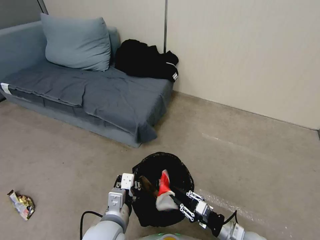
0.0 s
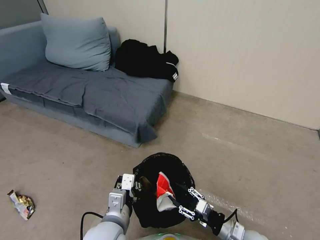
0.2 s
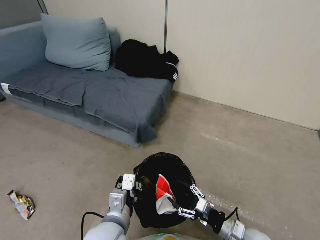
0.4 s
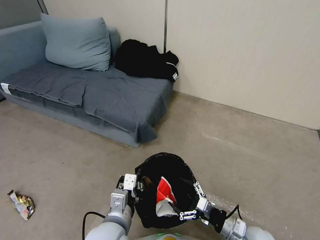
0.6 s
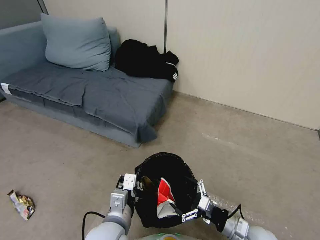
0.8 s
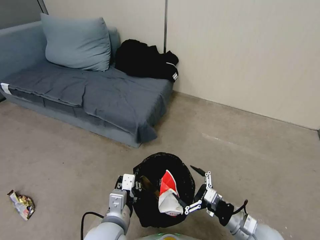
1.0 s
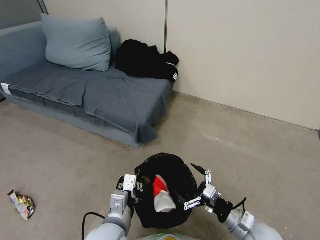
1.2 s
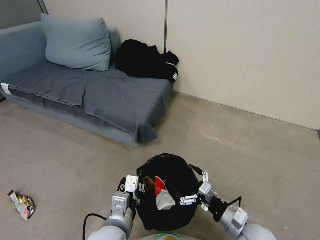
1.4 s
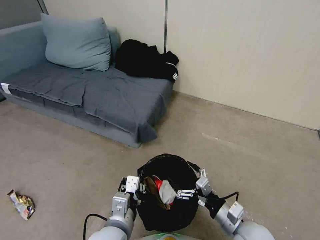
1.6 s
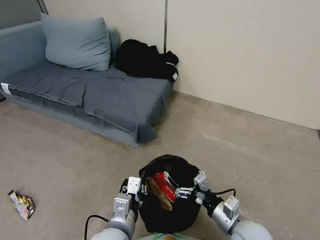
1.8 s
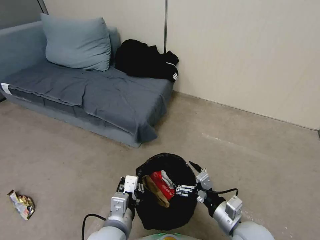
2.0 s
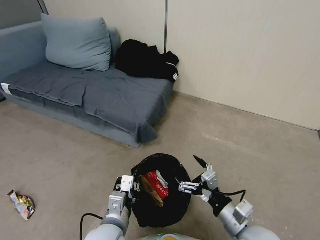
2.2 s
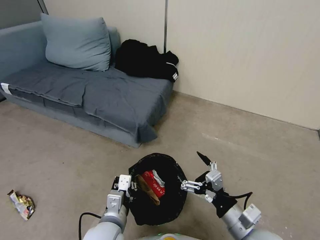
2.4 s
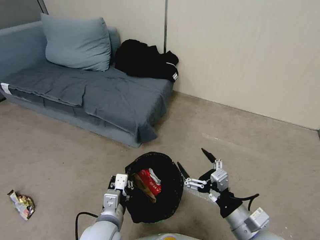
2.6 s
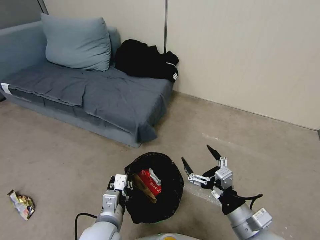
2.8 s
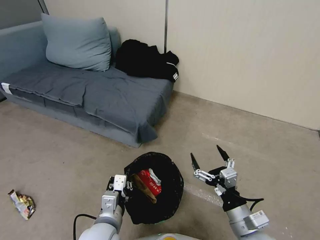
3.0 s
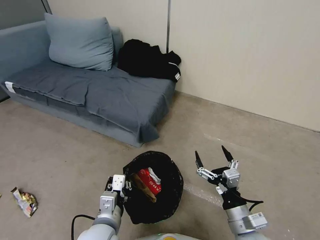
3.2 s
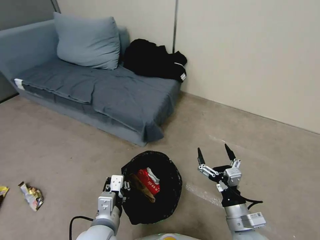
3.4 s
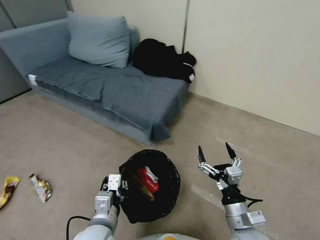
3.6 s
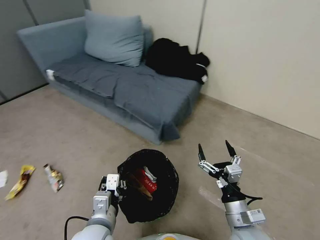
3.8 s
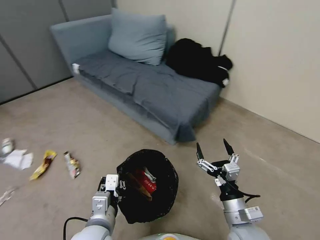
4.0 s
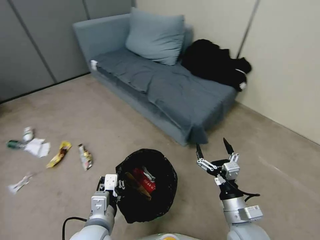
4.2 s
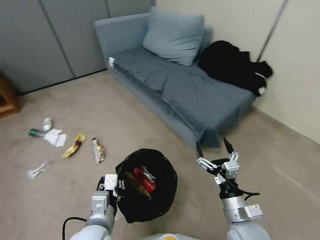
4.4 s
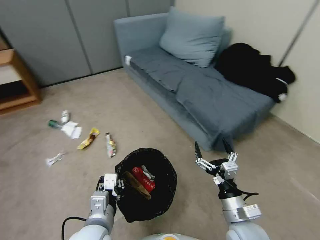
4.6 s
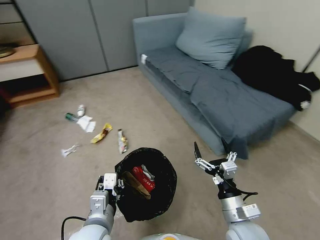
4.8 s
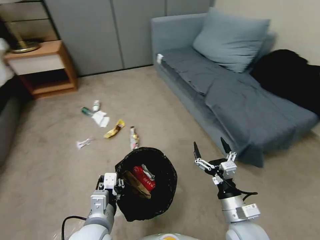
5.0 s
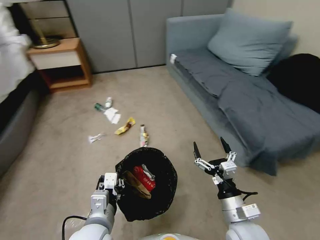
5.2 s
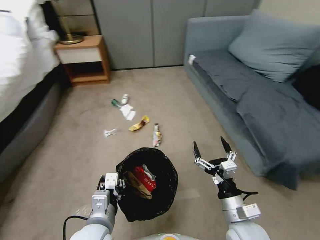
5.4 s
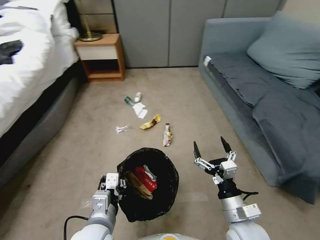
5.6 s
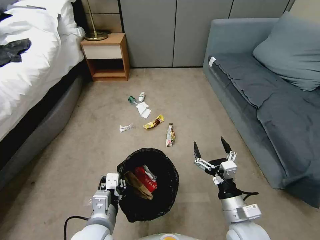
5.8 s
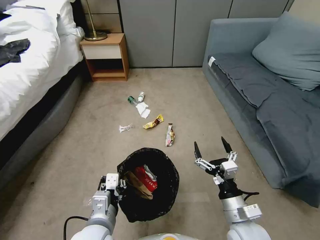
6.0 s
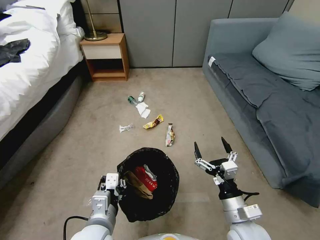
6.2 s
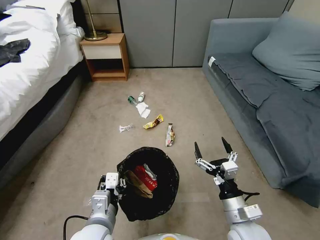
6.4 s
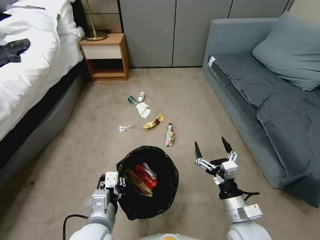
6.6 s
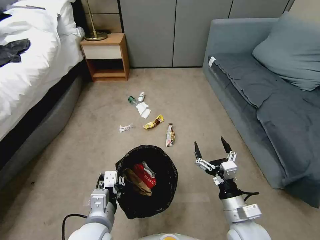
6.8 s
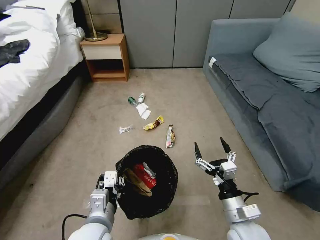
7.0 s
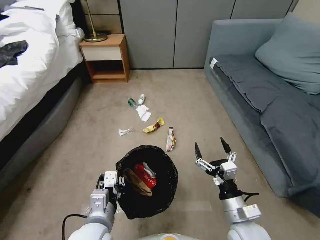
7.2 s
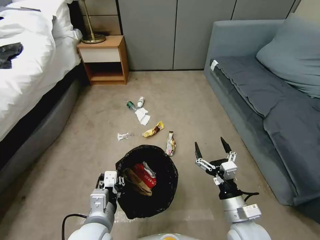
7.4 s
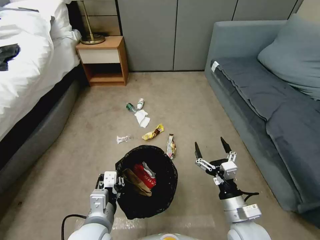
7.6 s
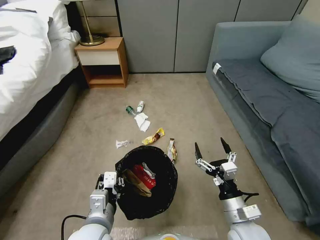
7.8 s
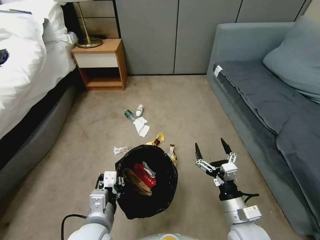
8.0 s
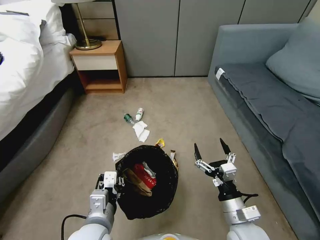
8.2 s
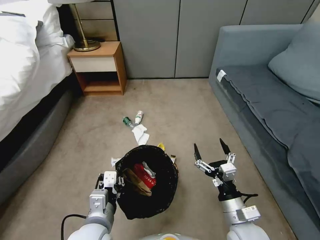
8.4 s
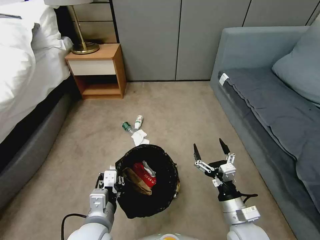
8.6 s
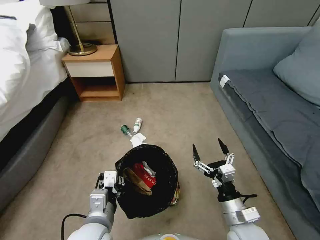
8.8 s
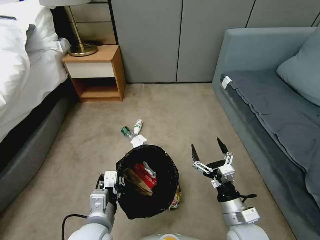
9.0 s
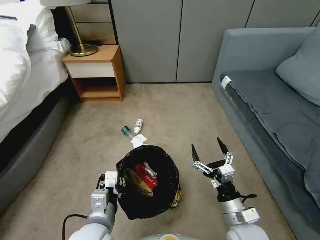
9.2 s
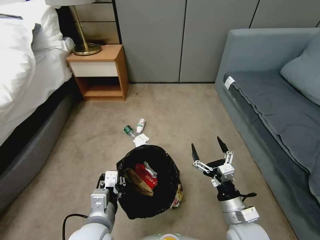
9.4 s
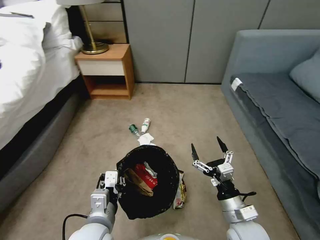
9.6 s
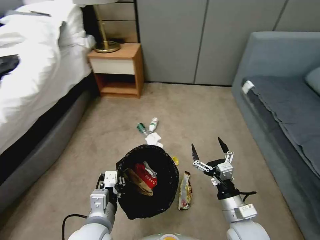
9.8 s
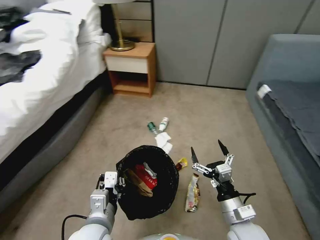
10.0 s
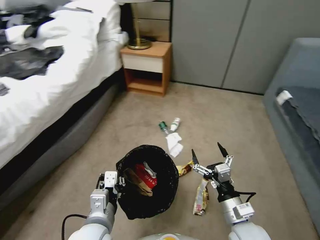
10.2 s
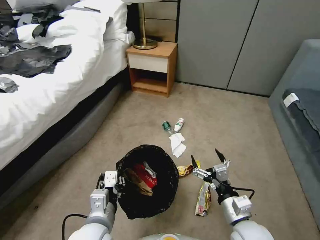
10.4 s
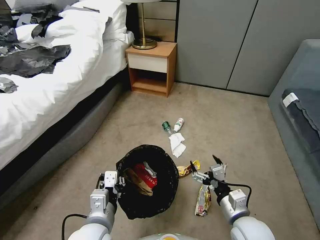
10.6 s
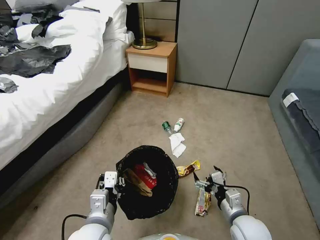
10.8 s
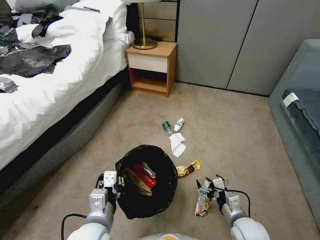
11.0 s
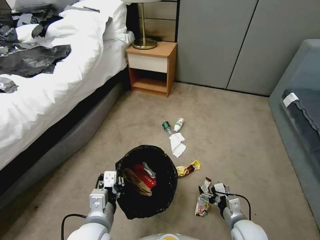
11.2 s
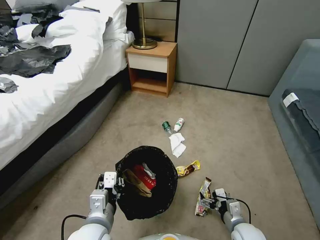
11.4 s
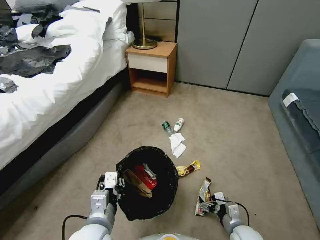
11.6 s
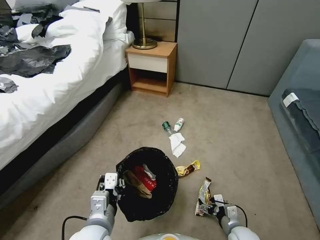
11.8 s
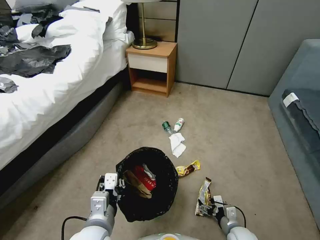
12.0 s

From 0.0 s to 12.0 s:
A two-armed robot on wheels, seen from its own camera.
Task of the whole recording: Pick up the trash bin, then pick up the garbage from the floor and place it into the trash bin.
From 0.0 s to 1.6 s: The right gripper travels upward by roughly 10 cm, and opens.
From 6.0 s to 7.6 s: Both grippers stay put.
From 10.4 s to 12.0 s: The right gripper heads downward, covering some 20 cm.

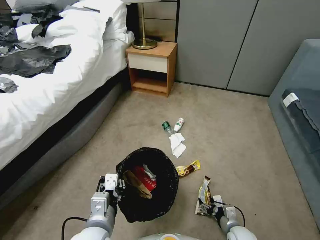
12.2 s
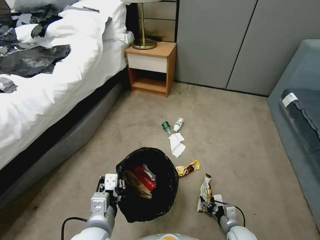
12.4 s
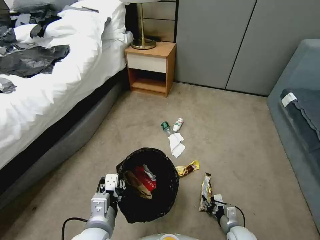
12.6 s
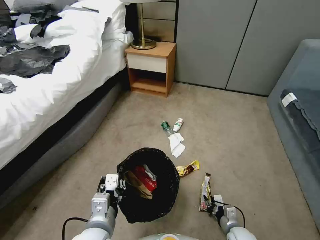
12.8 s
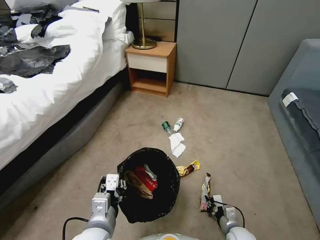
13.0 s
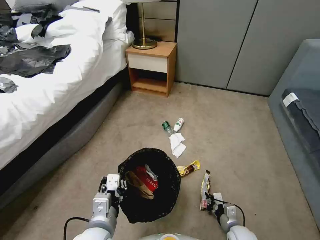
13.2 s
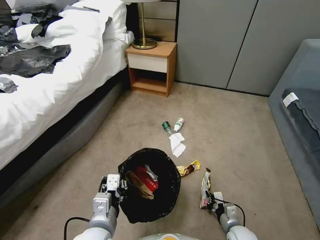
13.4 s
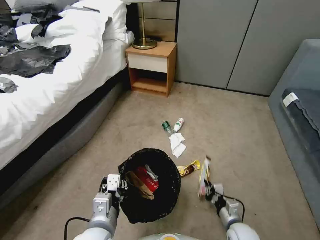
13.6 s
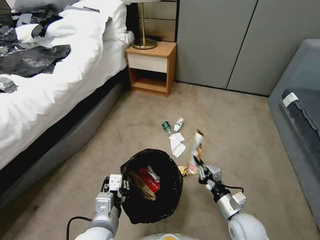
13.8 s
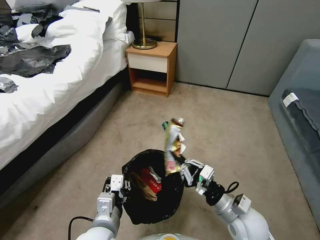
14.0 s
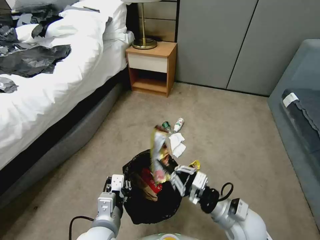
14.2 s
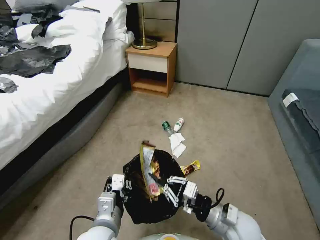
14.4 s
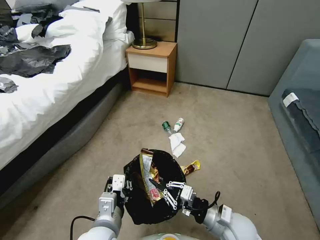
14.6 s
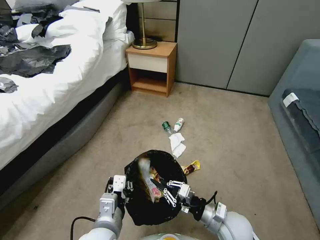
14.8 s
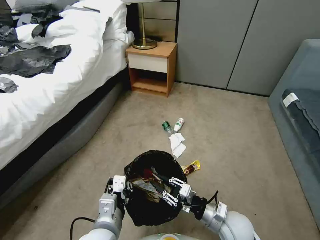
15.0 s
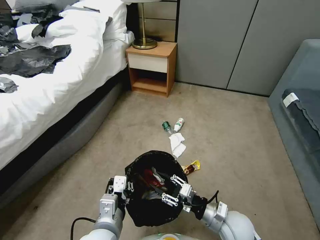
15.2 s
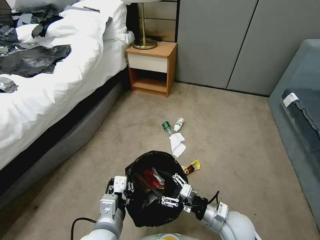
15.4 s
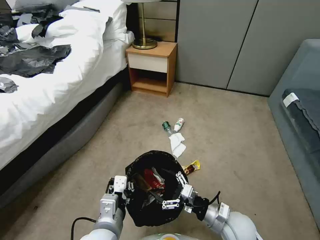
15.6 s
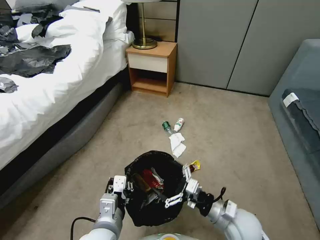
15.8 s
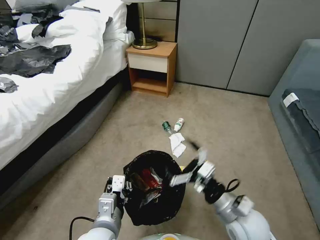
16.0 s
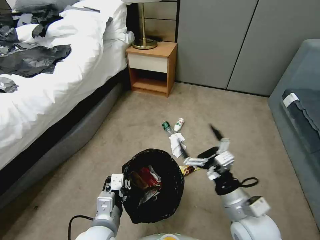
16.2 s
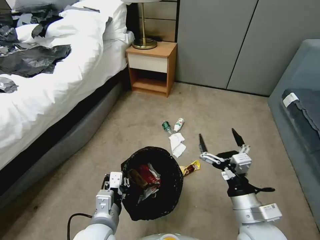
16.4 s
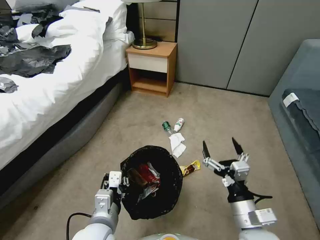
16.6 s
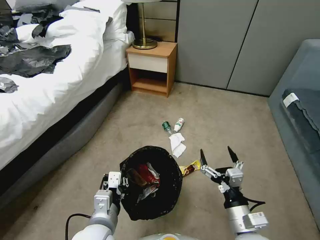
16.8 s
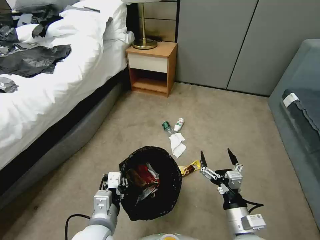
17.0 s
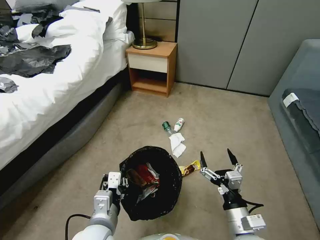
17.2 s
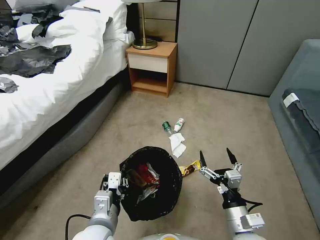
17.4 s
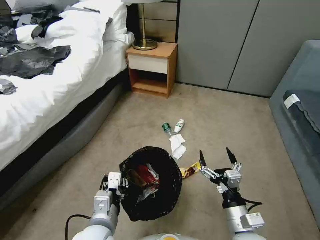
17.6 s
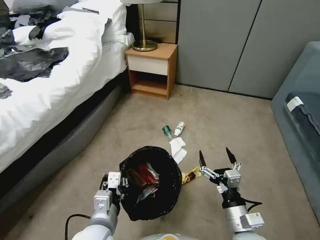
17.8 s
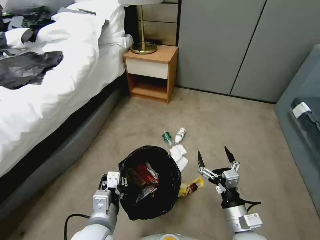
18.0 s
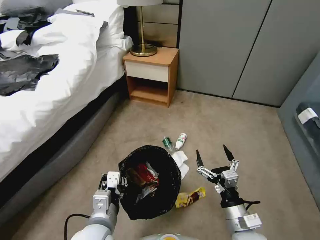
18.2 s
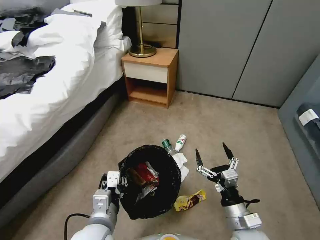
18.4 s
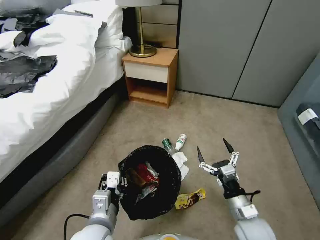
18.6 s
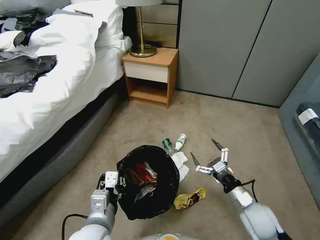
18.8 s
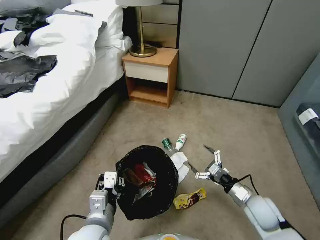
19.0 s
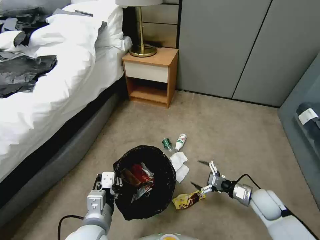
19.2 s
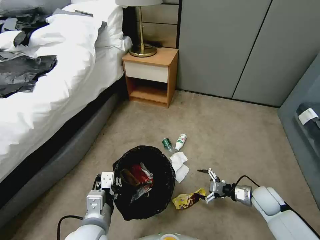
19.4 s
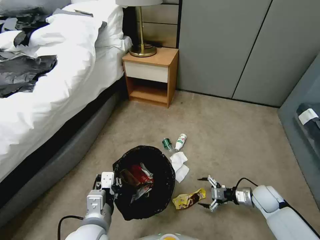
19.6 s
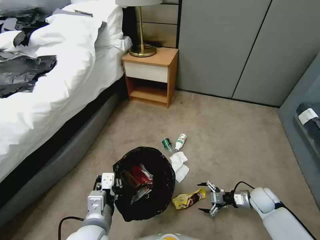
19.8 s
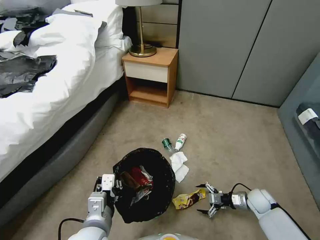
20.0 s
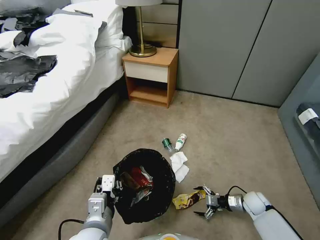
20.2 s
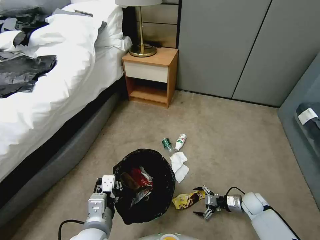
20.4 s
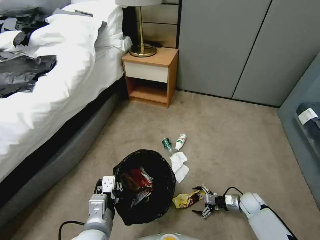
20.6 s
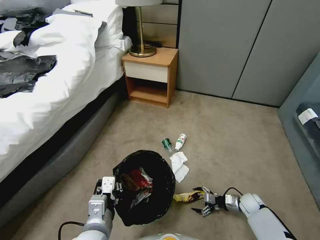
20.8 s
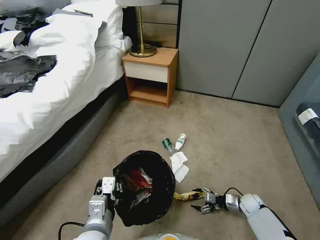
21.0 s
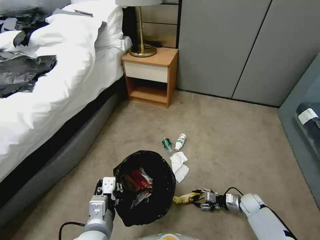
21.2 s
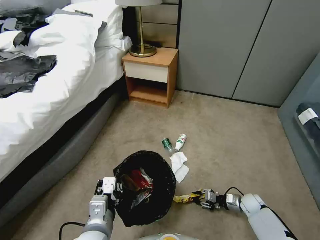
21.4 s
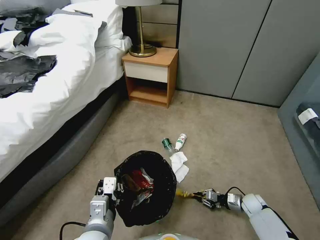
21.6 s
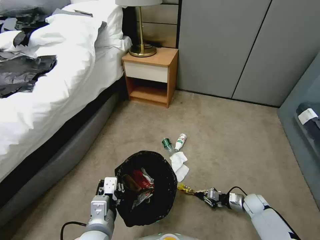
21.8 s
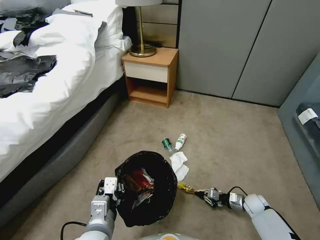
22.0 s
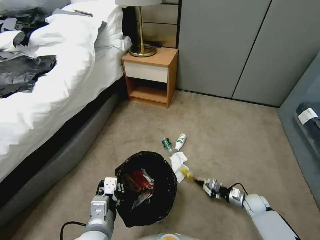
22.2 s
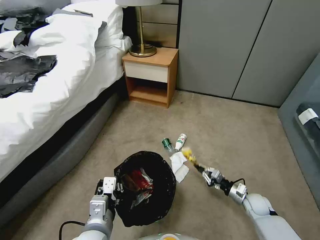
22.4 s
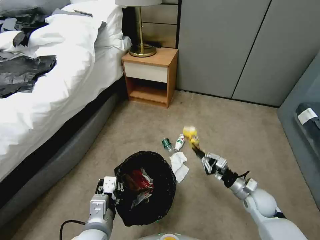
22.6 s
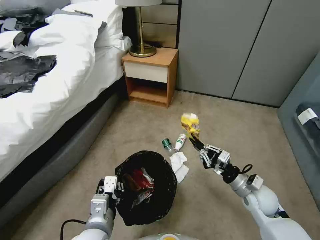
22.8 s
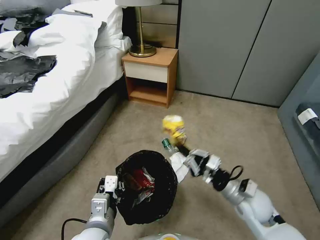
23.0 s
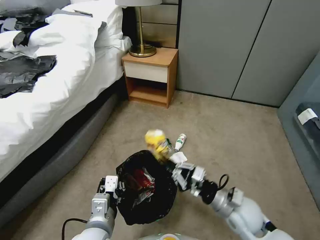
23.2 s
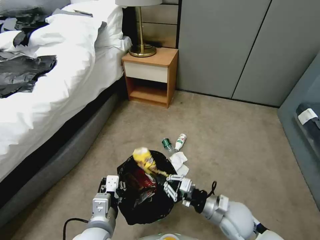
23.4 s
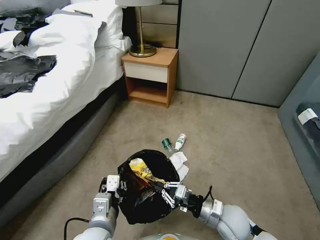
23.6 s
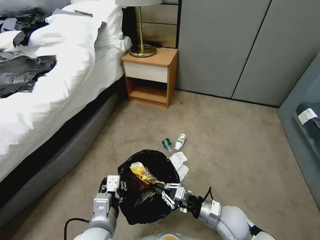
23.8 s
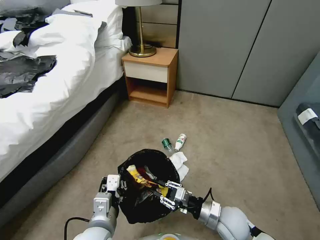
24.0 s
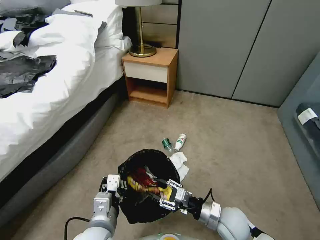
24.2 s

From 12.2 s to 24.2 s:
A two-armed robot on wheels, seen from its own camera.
Task of the whole recording: Pick up the trash bin, then pick up the garbage from the floor and place it into the trash bin.
From 12.2 s to 13.8 s: The right gripper goes about 15 cm upward, and closes up.
From 13.8 s to 15.2 s: The right gripper moves some 10 cm upward and comes back, and opens.
From 15.2 s to 16.6 s: The right gripper shifts some 10 cm upward and backward, and opens.
From 16.6 s to 18.2 s: The right gripper travels downward by approximately 5 cm.
From 18.2 s to 19.8 s: The right gripper is displaced to the right, forward and downward by about 25 cm.
From 19.8 s to 21.2 s: The right gripper shifts approximately 10 cm downward, and closes its fingers.
From 21.2 s to 22.6 s: The right gripper travels upward by about 15 cm, and closes its fingers.
From 22.6 s to 24.2 s: The right gripper travels to the left and backward by some 15 cm, and opens.
